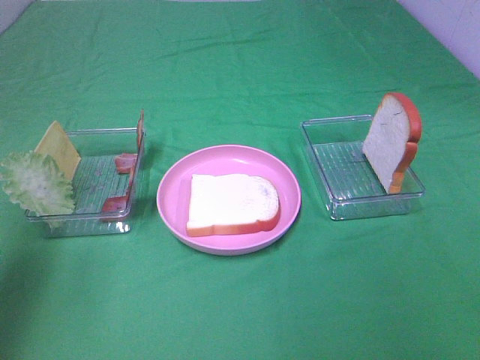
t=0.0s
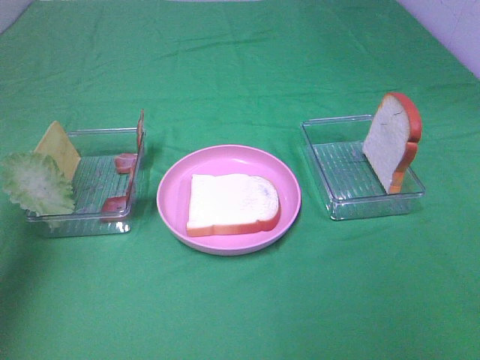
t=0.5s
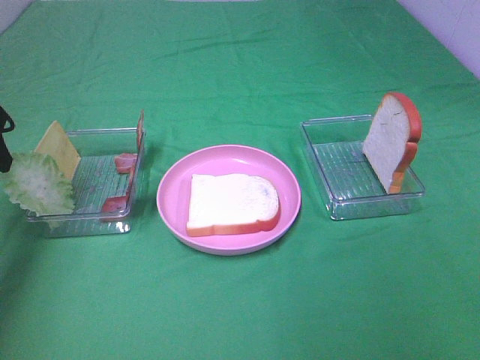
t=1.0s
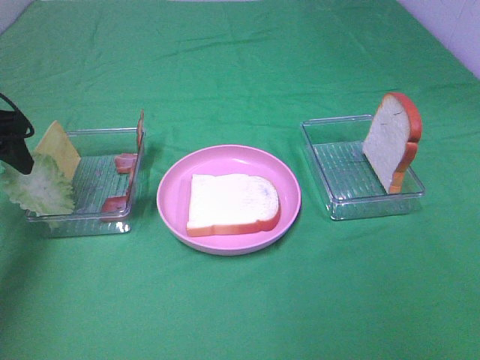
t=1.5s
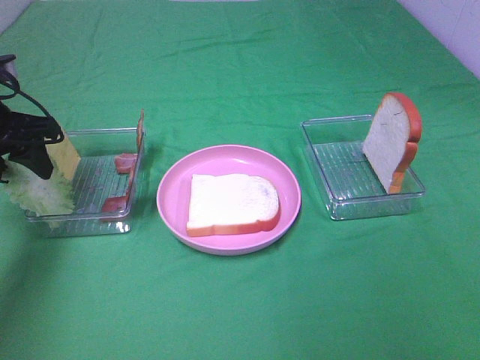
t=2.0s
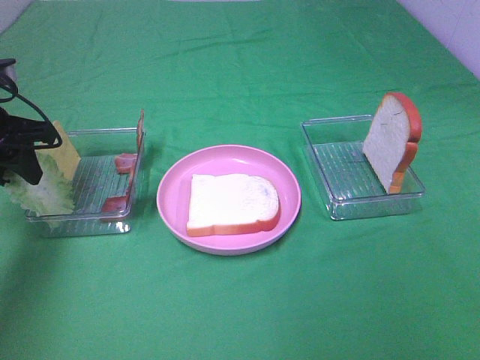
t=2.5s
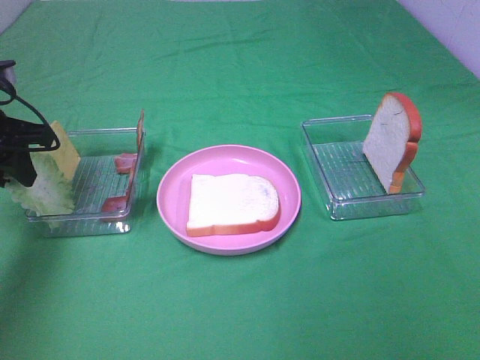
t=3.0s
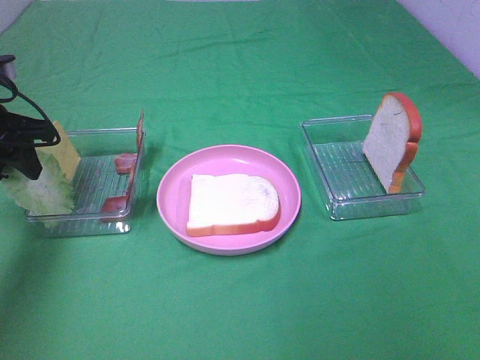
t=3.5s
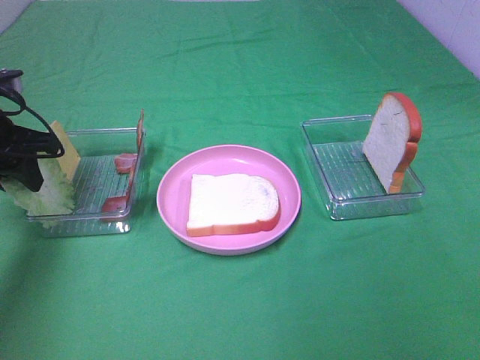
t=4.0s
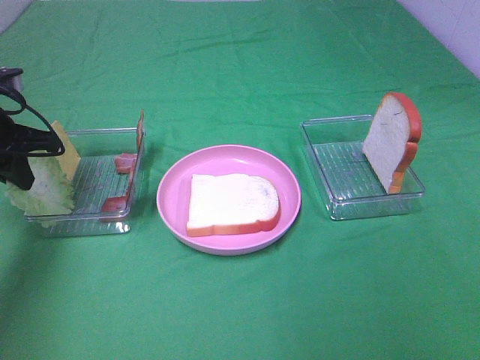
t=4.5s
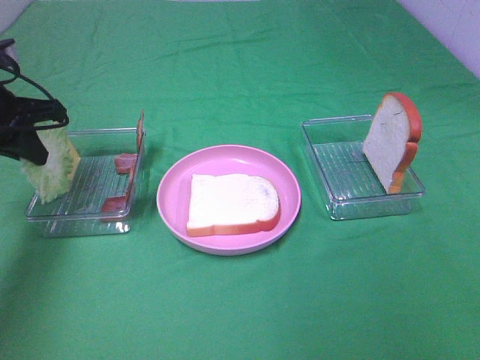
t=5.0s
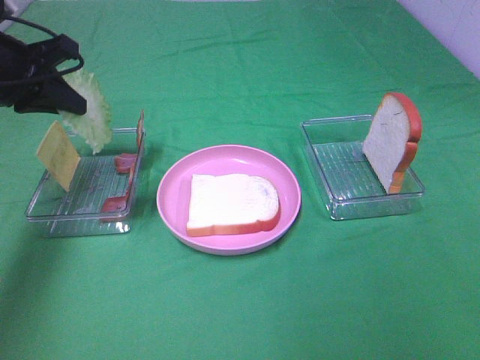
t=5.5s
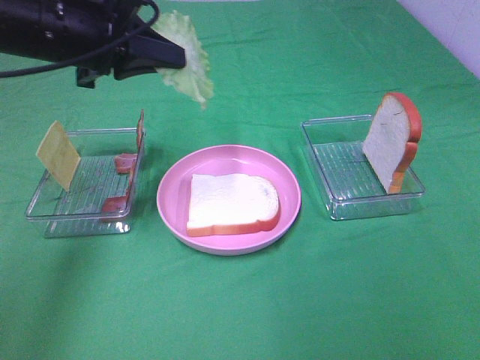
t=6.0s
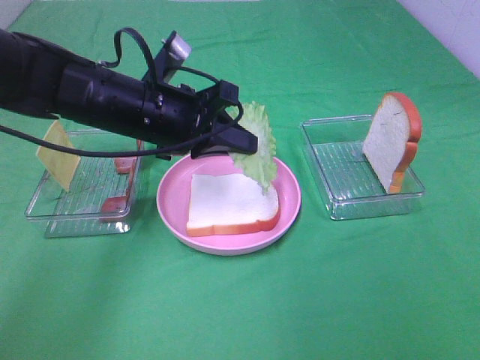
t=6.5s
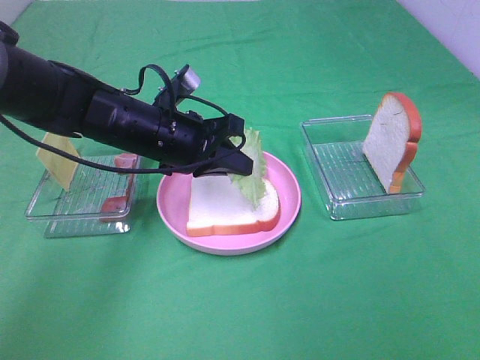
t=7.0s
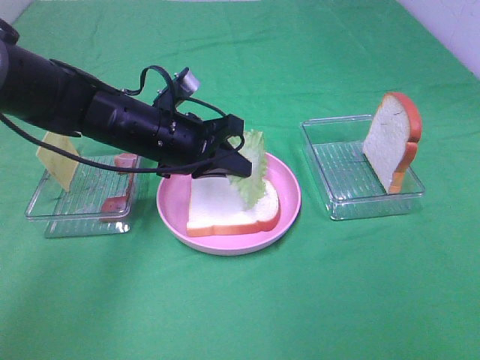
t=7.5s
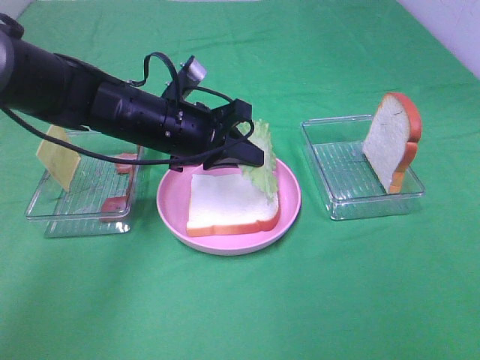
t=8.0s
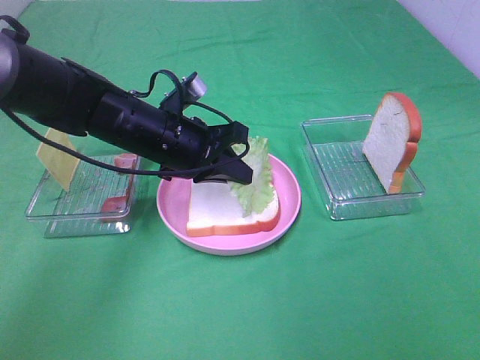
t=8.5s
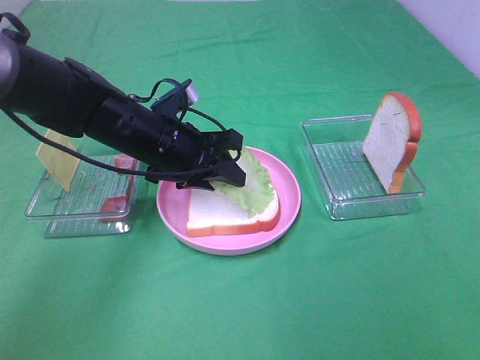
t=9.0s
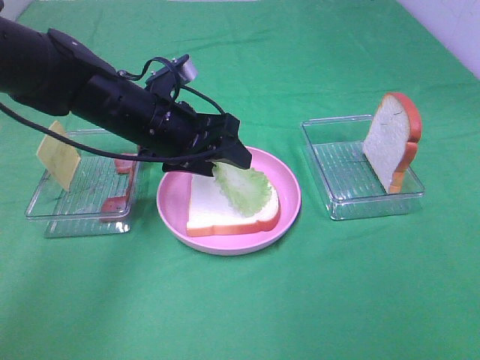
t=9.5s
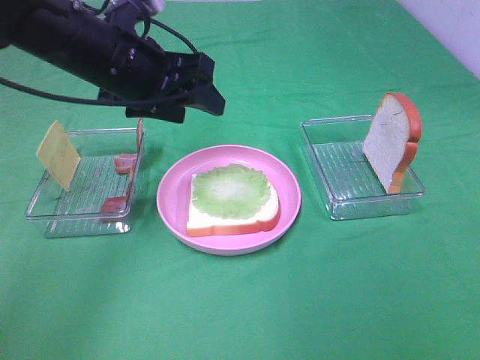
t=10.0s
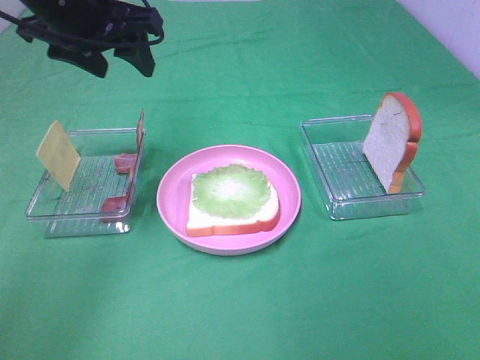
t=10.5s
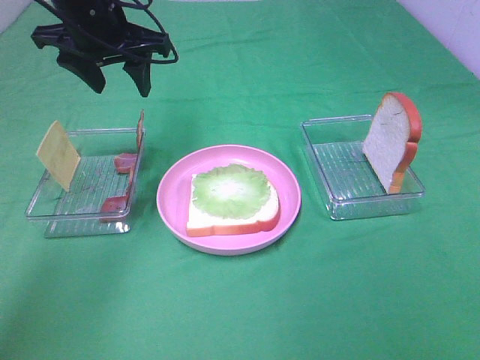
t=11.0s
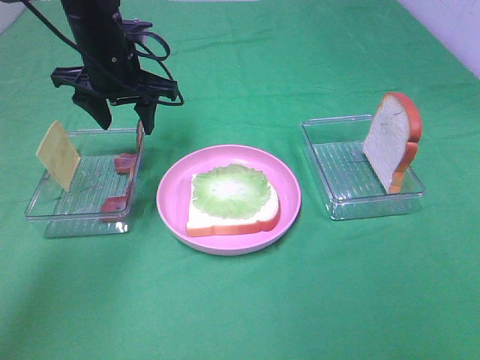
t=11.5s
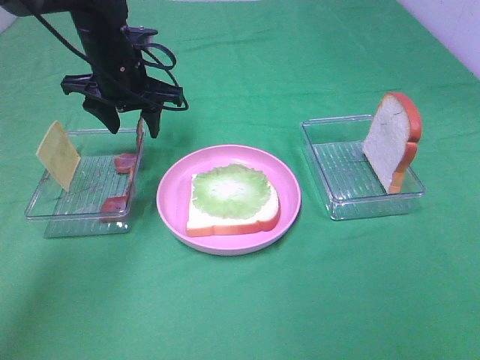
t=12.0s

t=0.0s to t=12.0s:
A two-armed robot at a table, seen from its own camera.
Task of the whole recording: Make sandwiches.
Step, t=0.0s to t=4.5s: Left hand:grab the lettuce slice.
Step, t=5.0s to t=9.5s: Left hand:place the lettuce slice on the bread slice.
t=0.0s to t=2.0s: The left gripper travels forward and downward by about 20 cm.
t=2.0s to t=4.0s: The grippers stay close to where they were, moving slightly.
t=4.0s to t=6.0s: The left gripper moves to the right and upward, roughly 15 cm, and closes.
t=6.0s to t=8.0s: The left gripper heads downward and to the right, covering roughly 15 cm.
t=8.0s to t=10.0s: The left gripper is displaced upward by about 10 cm, and opens.
t=10.0s to t=12.0s: The left gripper goes some 10 cm forward and downward.

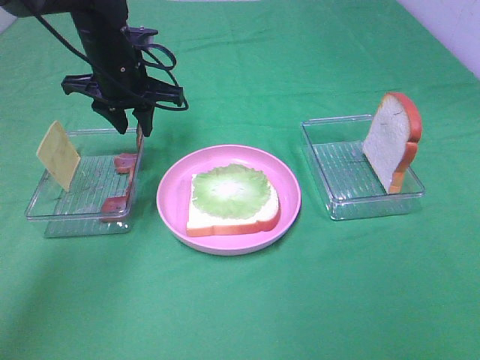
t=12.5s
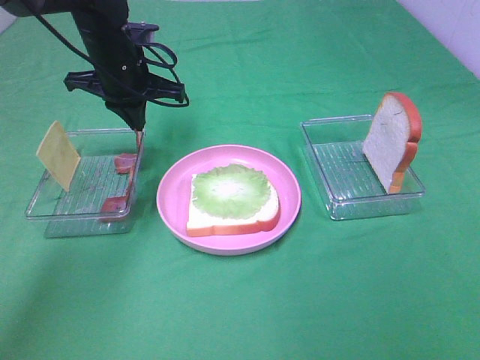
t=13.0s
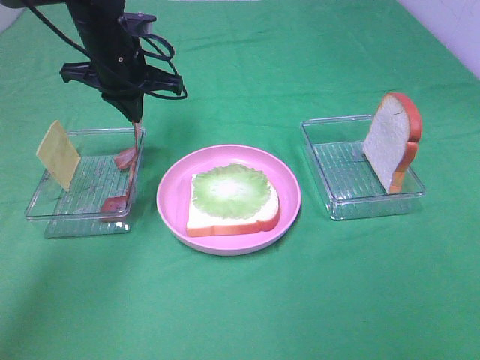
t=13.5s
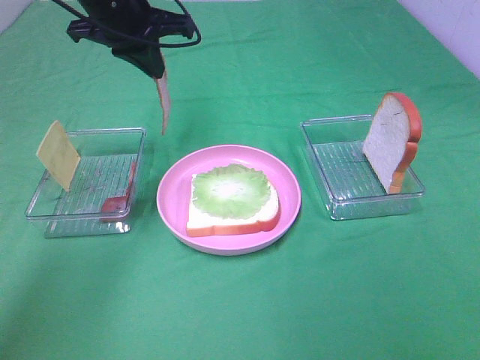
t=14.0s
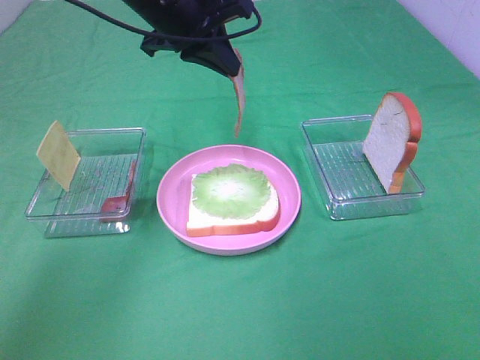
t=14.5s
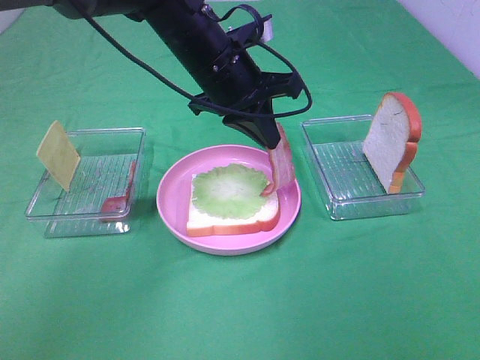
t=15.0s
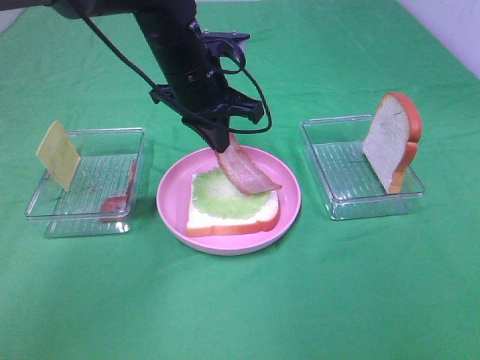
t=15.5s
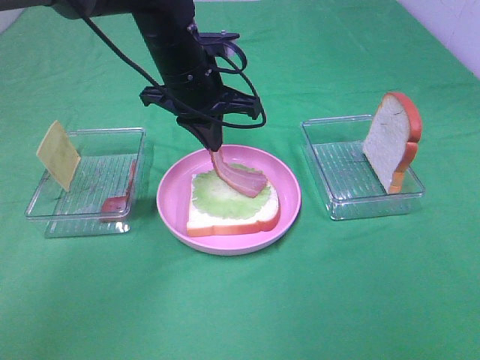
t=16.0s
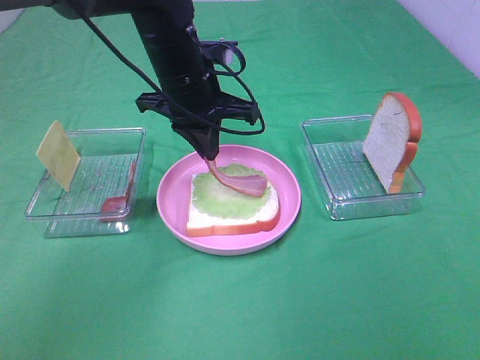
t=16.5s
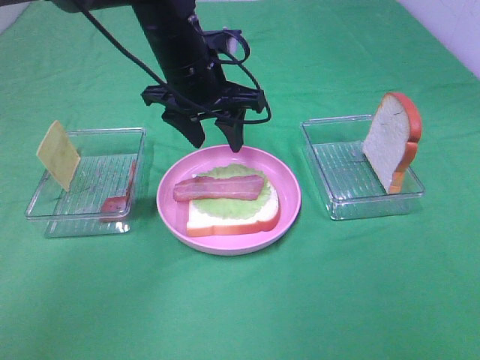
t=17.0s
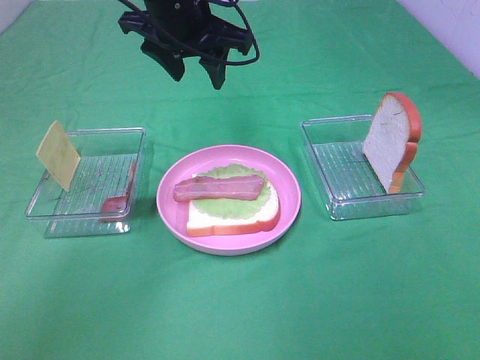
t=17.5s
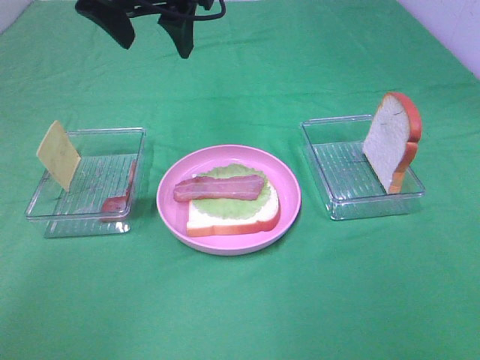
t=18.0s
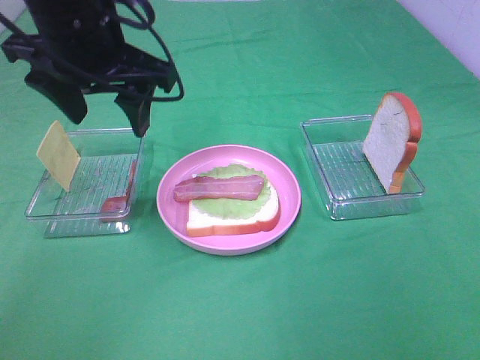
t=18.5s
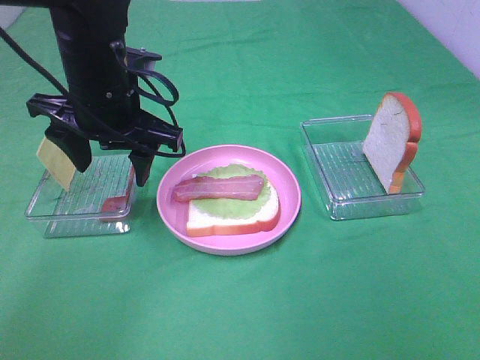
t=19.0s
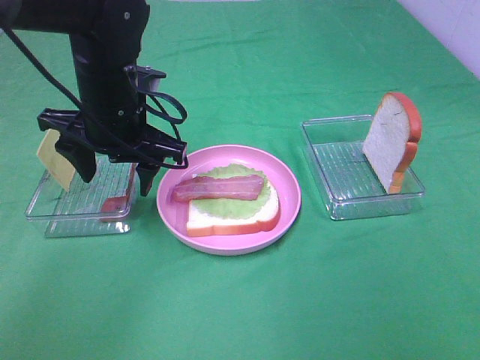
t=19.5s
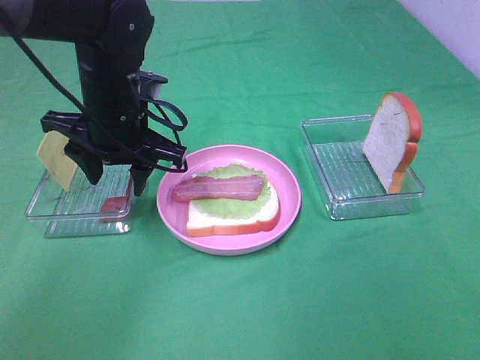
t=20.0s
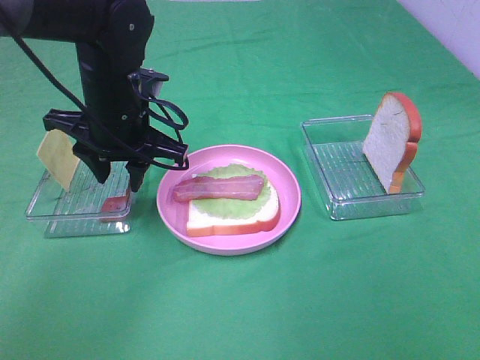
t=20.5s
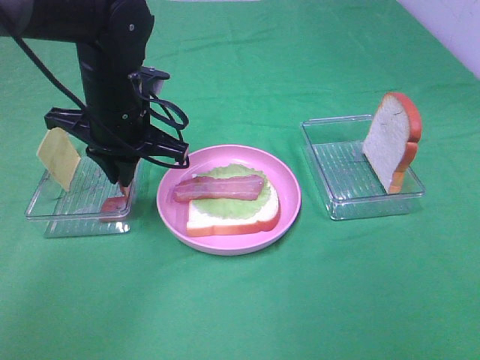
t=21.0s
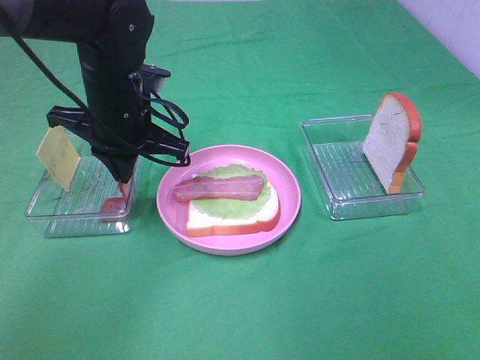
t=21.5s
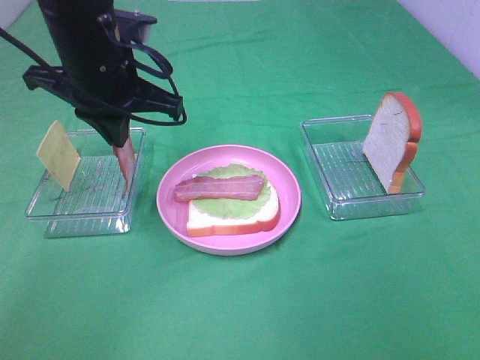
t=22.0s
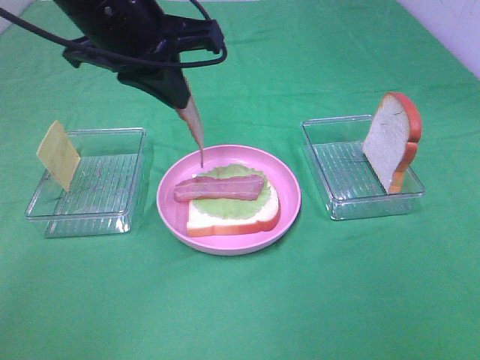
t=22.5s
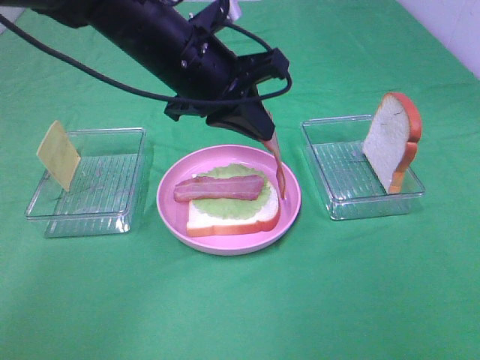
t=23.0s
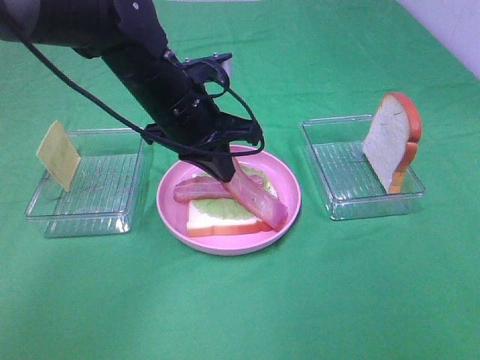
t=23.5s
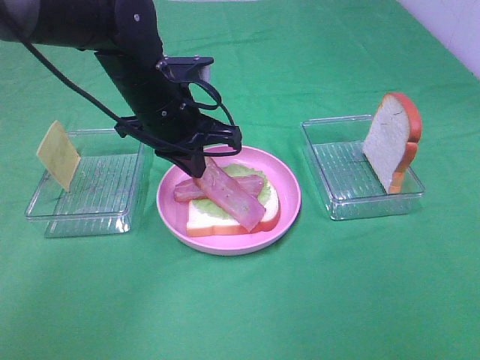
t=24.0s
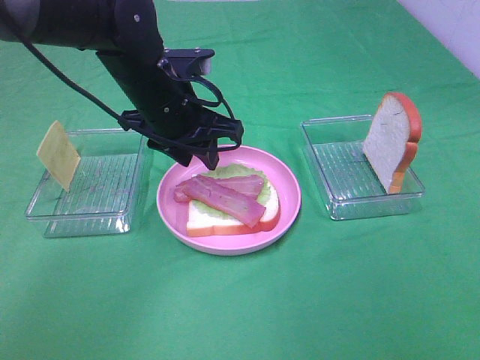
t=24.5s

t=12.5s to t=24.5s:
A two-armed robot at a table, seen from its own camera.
Task of the whole recording: Make sandwiches.
Step, t=13.5s to t=17.0s: Left hand:place bacon on lettuce slice.
Step, t=17.5s to t=21.0s: Left hand:grab the bacon.
Step, t=21.5s to t=24.5s: Left hand:place bacon on bacon.
t=12.5s to t=14.5s: The left gripper heads upward and to the right, covering approximately 10 cm, and closes up.
t=14.5s to t=16.5s: The left gripper is displaced downward by about 5 cm.
t=16.5s to t=18.5s: The left gripper shifts some 15 cm upward, backward and to the left, and opens up.
t=18.5s to t=20.5s: The left gripper shifts some 10 cm downward.
t=20.5s to t=22.5s: The left gripper goes some 10 cm upward, and closes up.
t=22.5s to t=24.5s: The left gripper moves downward, about 10 cm, and opens.

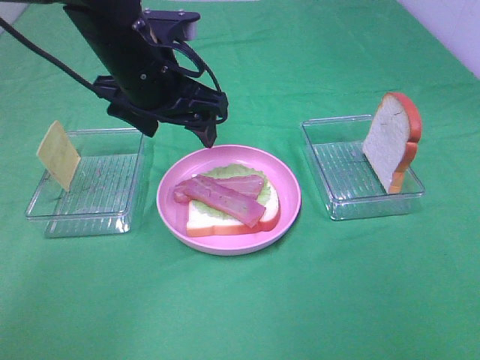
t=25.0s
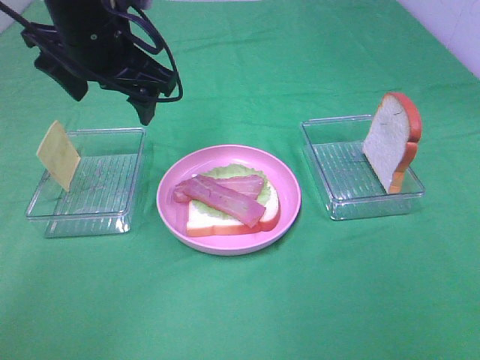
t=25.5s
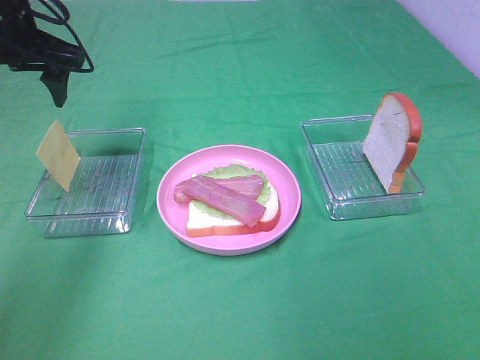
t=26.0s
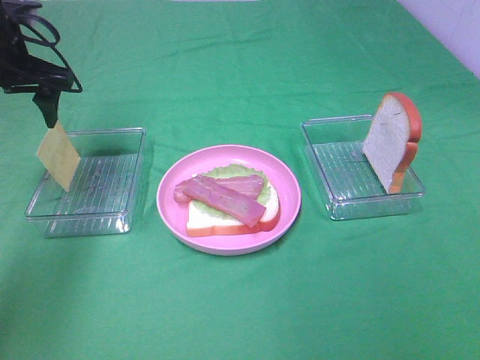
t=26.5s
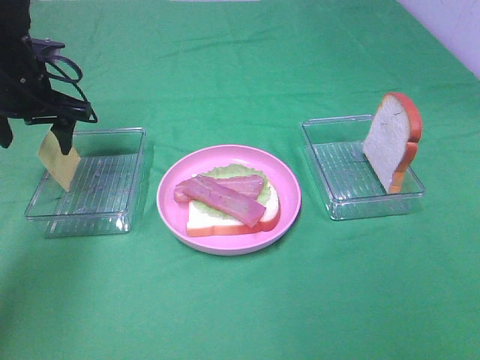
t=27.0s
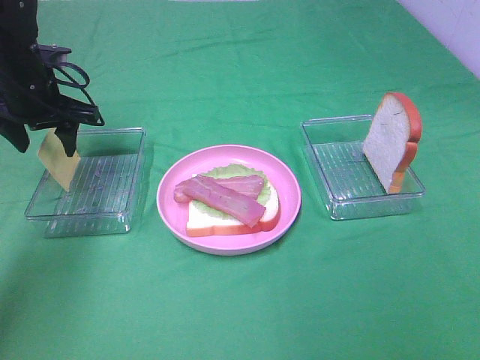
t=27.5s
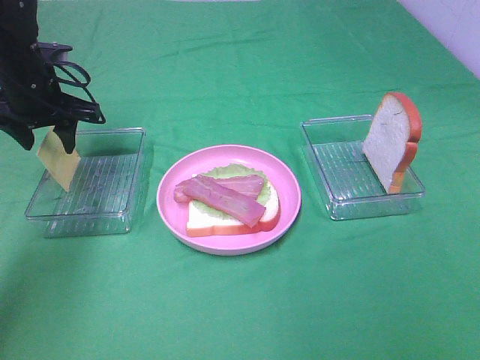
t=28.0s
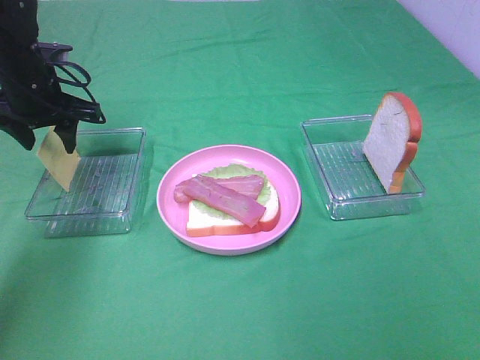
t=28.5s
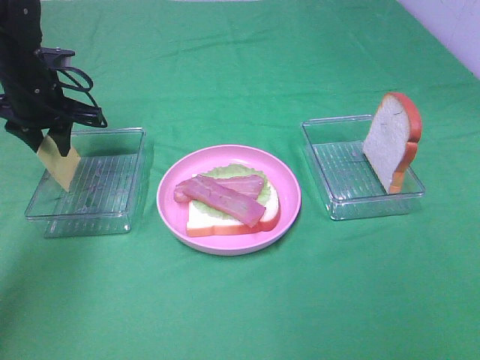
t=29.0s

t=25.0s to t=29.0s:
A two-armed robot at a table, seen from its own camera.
Task of the whole recording: Make sandwiches.
t=25.0s to t=27.0s: The left gripper heads to the left and forward, covering roughly 20 cm.
t=27.0s to t=29.0s: The left gripper closes up.
